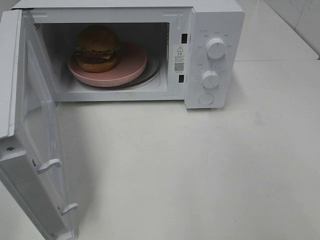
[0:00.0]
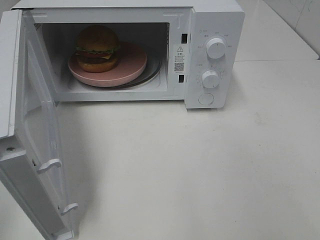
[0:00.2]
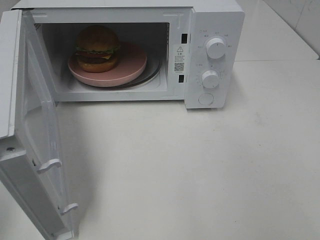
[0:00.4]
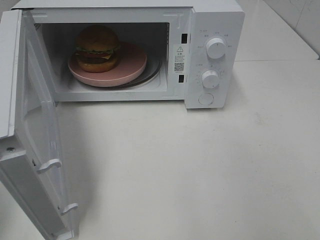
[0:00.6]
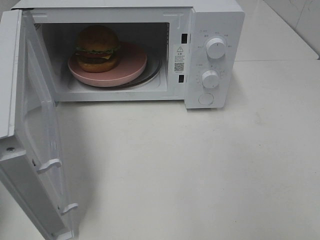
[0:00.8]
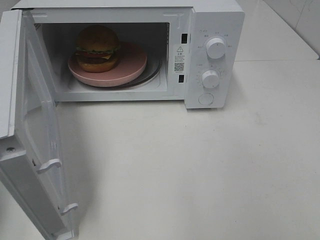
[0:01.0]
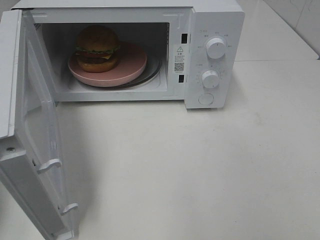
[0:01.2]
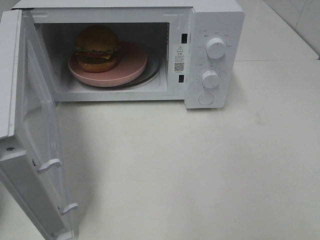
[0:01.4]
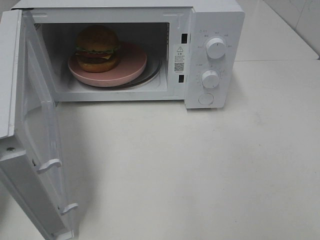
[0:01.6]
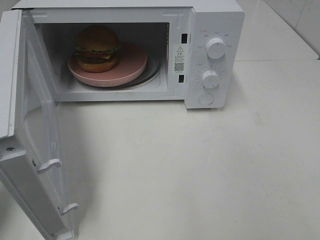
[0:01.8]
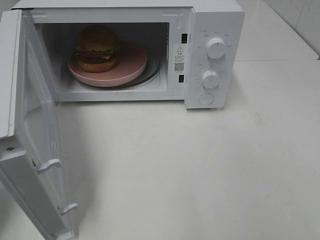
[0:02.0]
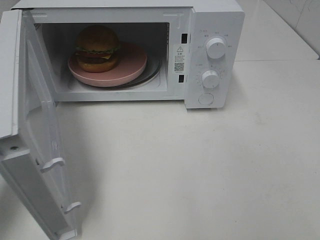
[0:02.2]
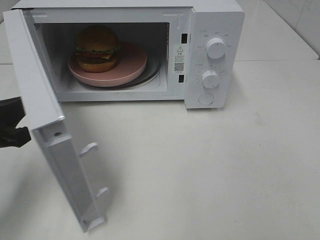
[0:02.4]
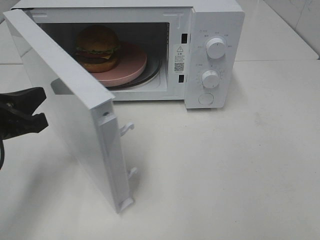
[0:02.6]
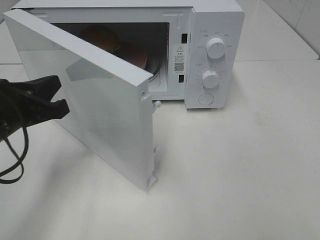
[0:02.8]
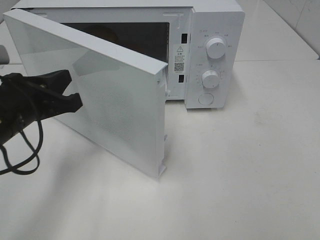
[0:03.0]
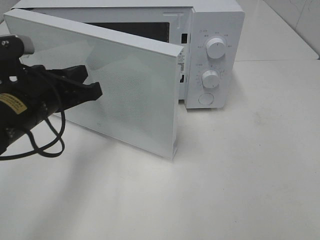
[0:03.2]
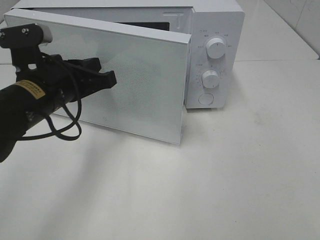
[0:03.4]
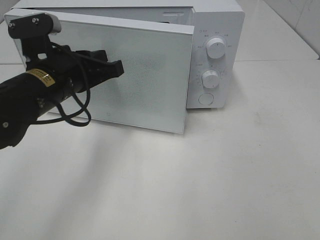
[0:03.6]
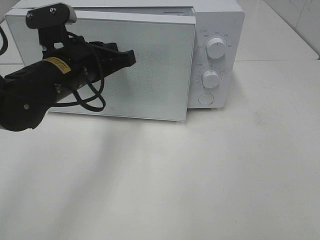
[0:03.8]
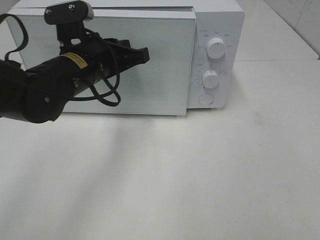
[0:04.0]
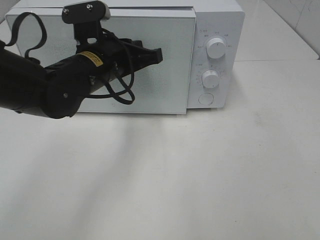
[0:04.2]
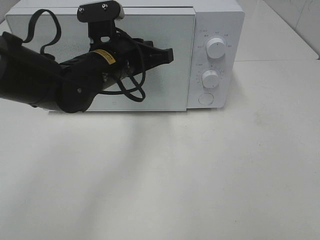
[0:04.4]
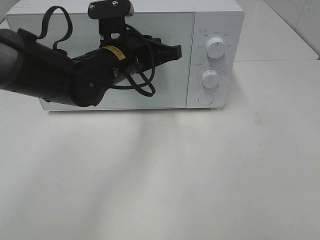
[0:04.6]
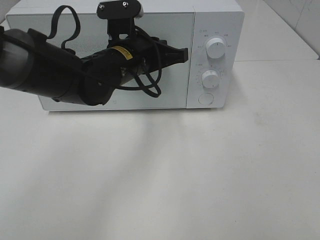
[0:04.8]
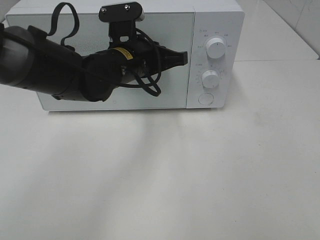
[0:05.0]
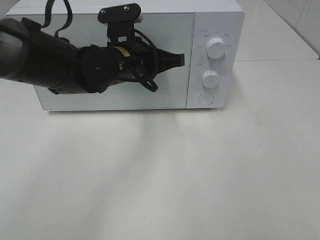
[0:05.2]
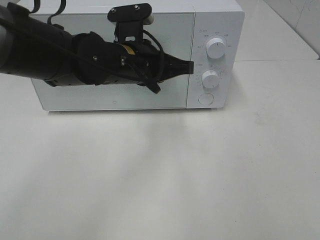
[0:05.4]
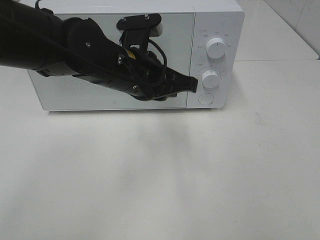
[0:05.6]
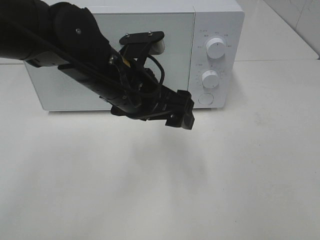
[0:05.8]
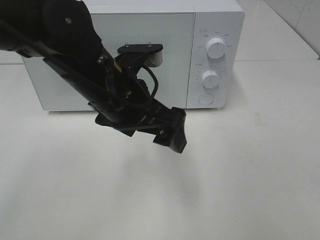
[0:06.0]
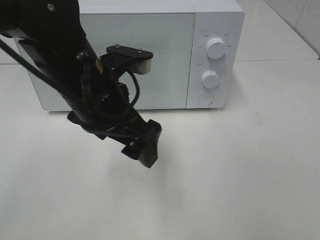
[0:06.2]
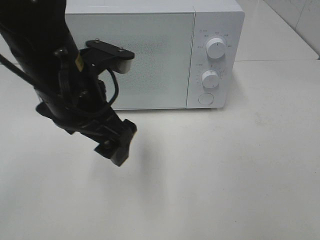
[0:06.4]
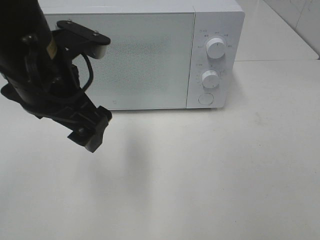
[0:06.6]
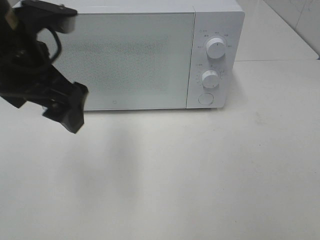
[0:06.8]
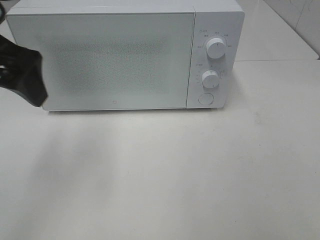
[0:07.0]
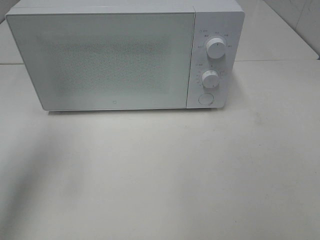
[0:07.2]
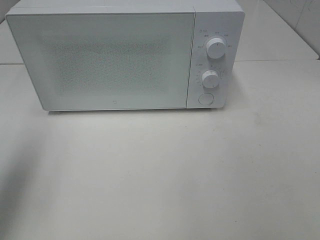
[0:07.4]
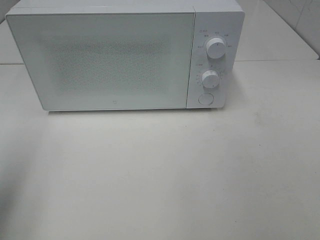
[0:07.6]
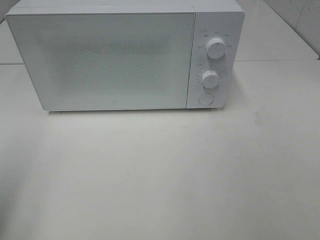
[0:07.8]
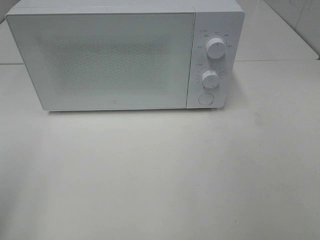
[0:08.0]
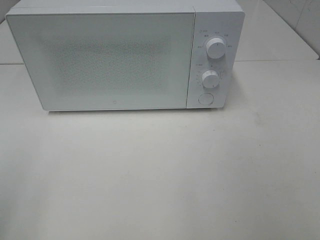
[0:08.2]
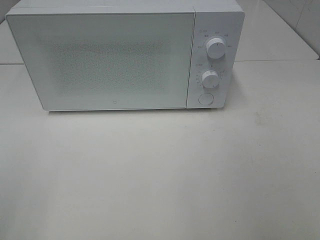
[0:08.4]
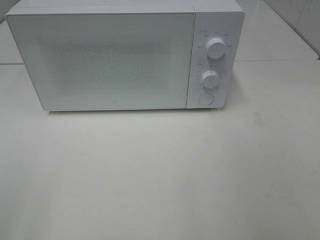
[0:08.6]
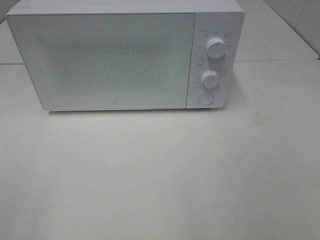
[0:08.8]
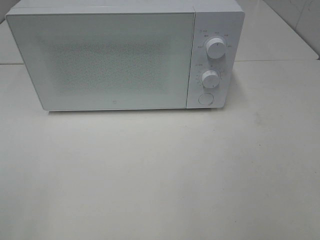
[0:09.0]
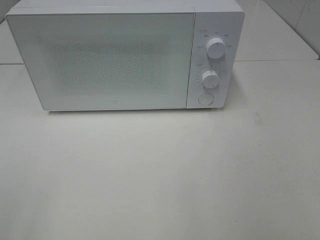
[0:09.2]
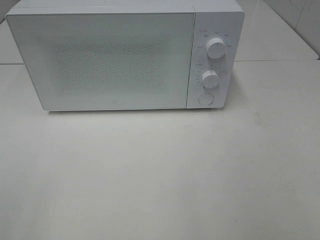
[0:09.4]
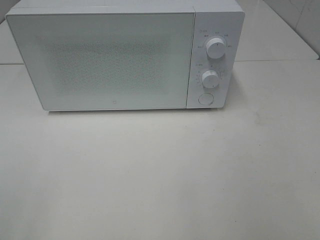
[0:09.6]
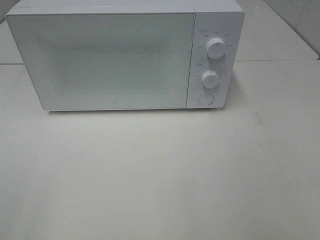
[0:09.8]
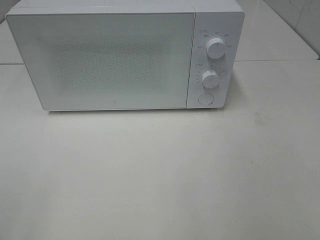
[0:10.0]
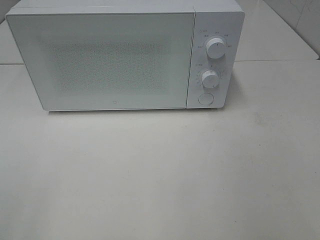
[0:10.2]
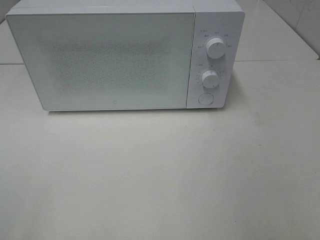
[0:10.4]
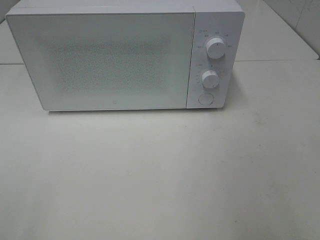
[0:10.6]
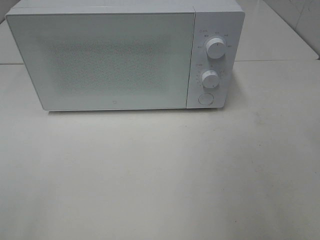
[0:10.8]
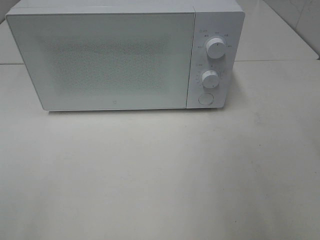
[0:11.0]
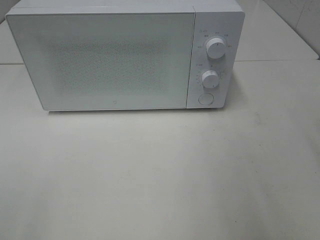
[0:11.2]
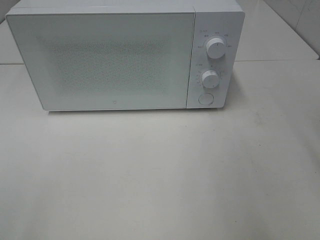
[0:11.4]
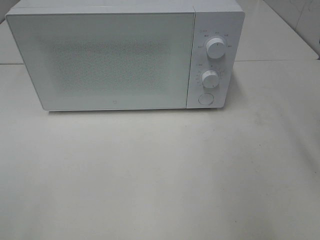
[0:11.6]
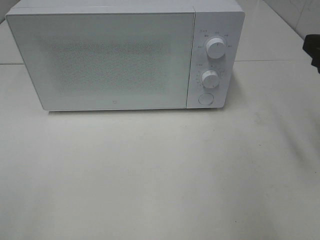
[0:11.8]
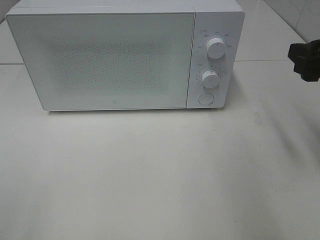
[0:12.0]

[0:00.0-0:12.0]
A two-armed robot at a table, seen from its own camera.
Task of the whole recording: Heat the burger.
Step, 0:00.0 to 0:05.2: Left hand: close the microwave door.
0:01.6 to 0:03.0: The left gripper shifts about 15 cm to the right and forward.
0:03.0 to 0:04.4: The left gripper heads to the right and forward, covering some 15 cm.
0:04.4 to 0:06.0: The left gripper heads backward, covering some 10 cm, and opens up.
0:06.0 to 0:07.6: The left gripper travels to the left by roughly 25 cm.
0:07.6 to 0:09.0: The left gripper moves backward, roughly 15 cm.
0:10.4 to 0:12.0: The right gripper shifts approximately 20 cm forward.

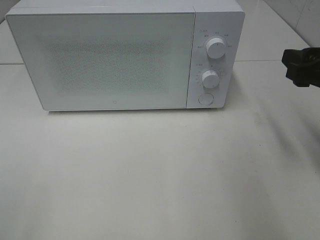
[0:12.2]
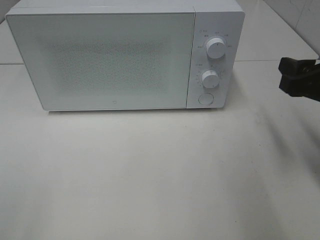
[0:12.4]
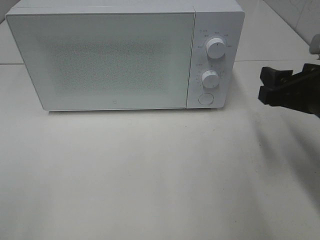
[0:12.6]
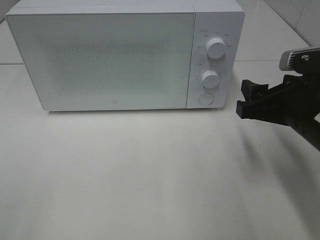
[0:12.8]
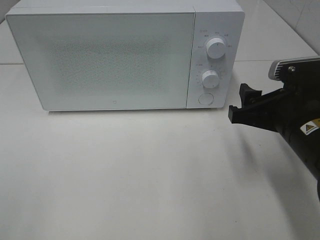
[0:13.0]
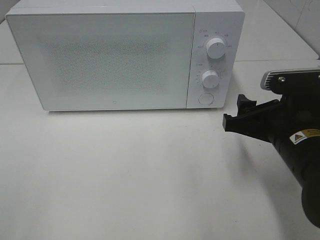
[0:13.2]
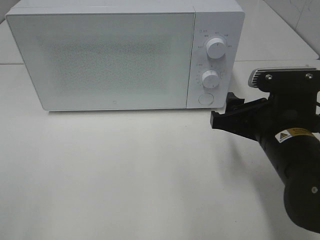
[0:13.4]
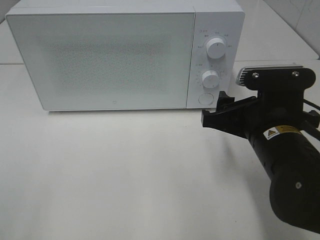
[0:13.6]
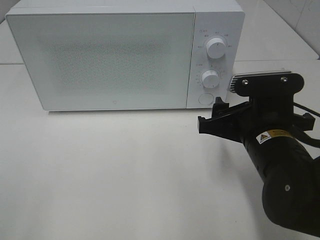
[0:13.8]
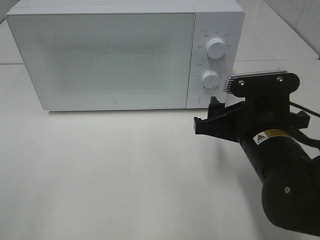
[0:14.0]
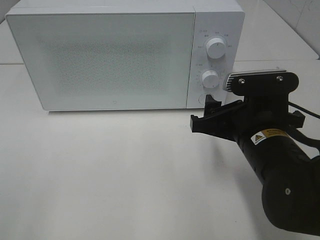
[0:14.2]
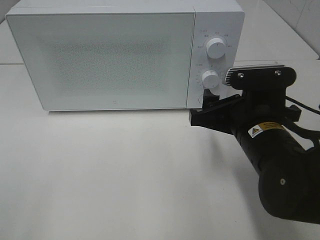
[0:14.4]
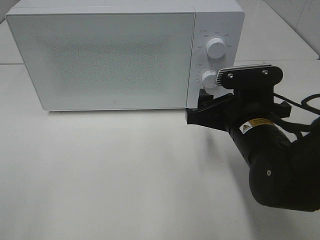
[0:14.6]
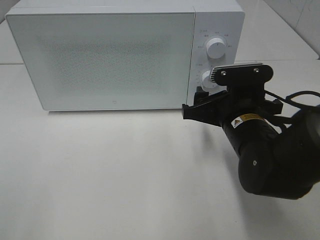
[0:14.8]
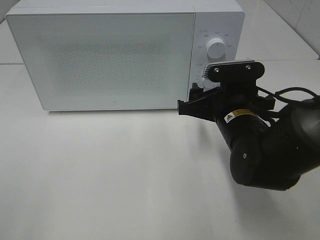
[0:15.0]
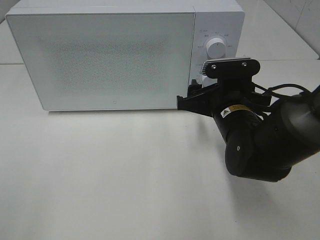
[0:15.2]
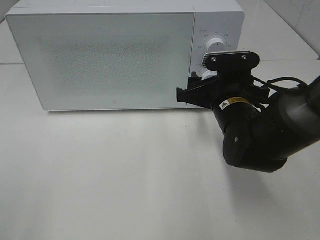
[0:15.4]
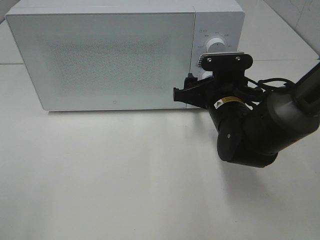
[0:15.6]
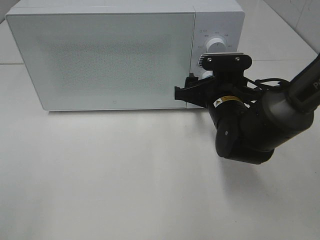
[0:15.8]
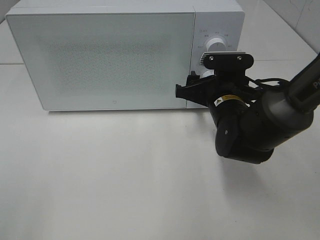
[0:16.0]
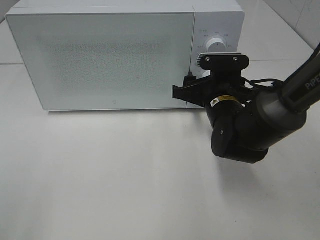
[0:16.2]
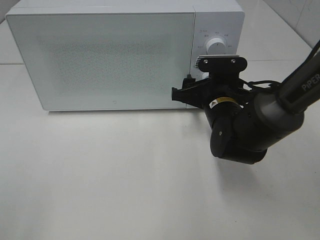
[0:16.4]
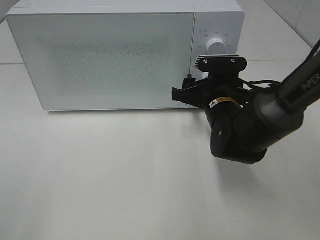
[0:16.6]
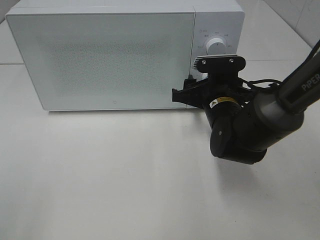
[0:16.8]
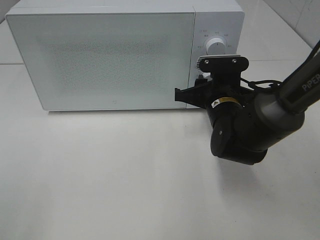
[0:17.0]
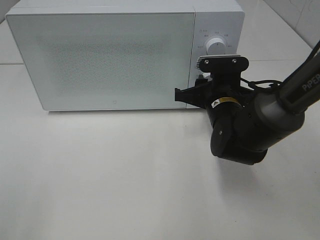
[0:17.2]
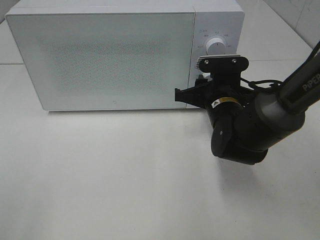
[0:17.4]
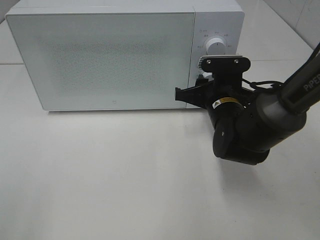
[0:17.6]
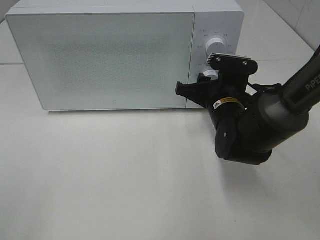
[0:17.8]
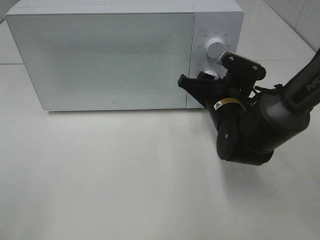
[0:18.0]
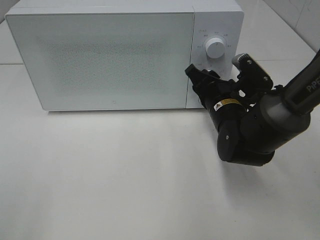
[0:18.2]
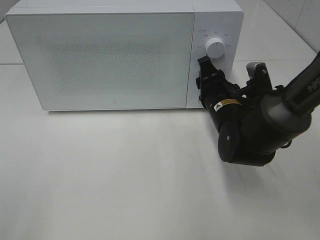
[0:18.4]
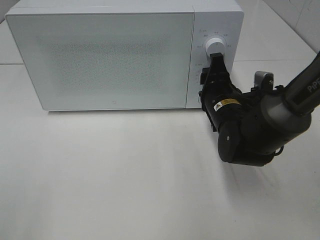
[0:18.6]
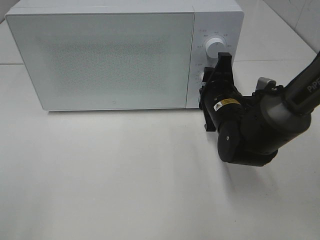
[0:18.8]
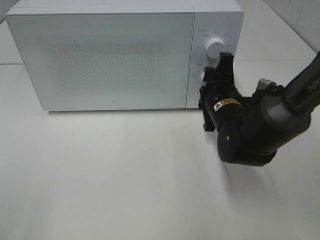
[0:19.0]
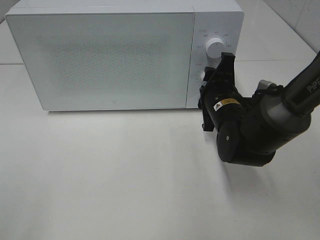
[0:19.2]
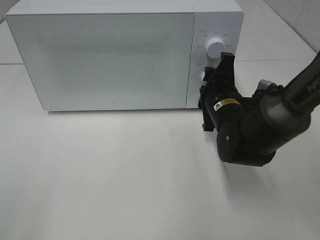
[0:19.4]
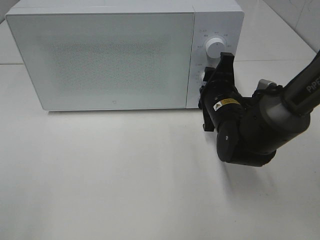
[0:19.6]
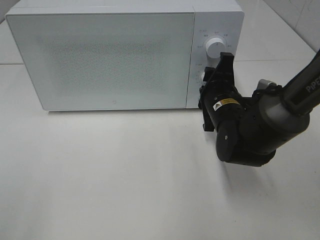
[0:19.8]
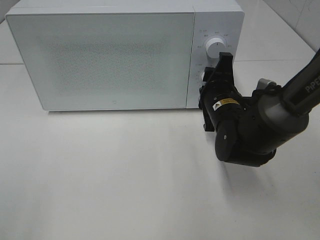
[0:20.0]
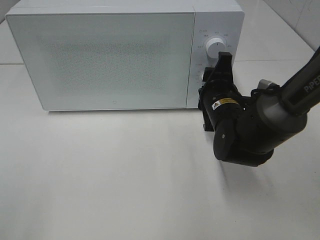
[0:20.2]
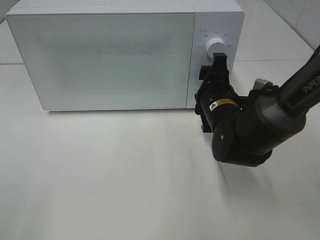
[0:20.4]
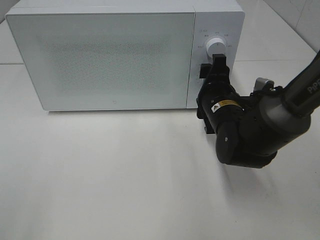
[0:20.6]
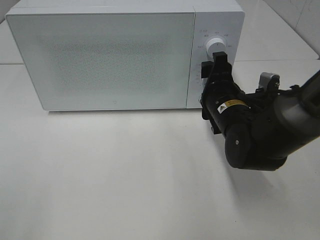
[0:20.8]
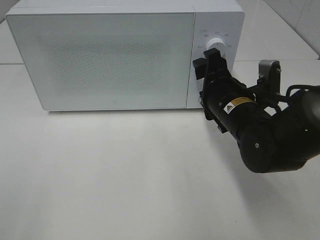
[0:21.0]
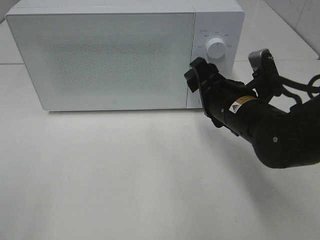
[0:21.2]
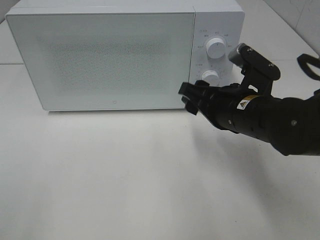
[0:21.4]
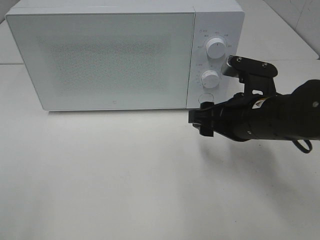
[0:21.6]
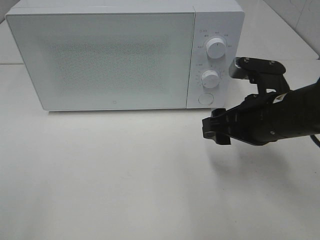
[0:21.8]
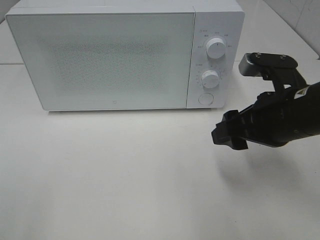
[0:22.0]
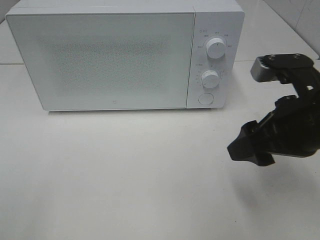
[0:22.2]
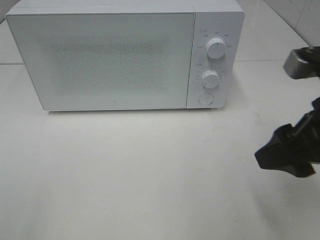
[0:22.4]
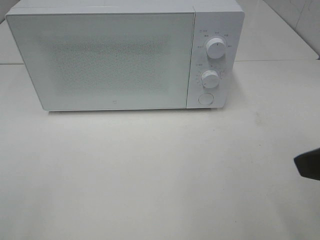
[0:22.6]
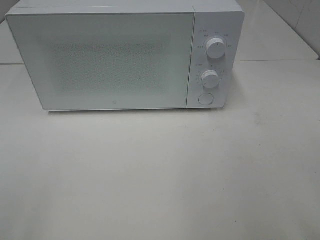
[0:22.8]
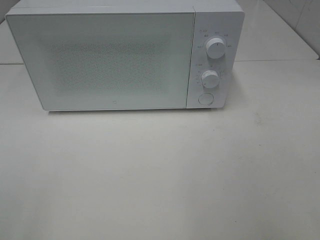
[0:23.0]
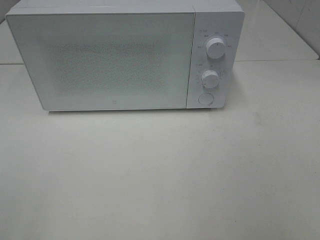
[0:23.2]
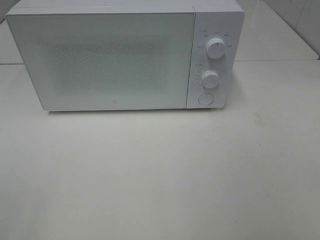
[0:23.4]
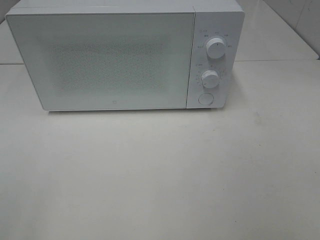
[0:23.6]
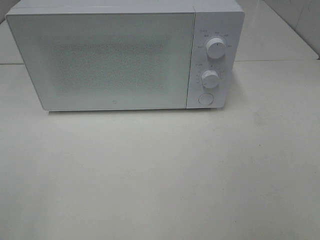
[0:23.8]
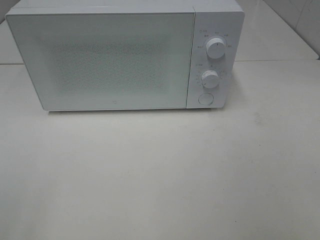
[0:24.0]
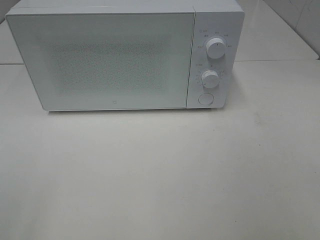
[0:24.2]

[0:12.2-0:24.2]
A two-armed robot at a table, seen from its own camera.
Task of the whole recording: Heat the burger.
Step, 0:12.2 to 0:20.4: Right hand: twist timer button.
0:12.2 to 0:13.8: The right gripper travels to the left and downward by about 15 cm.
0:13.8 to 0:15.2: The right gripper heads forward, covering some 10 cm.
0:15.2 to 0:16.6: The grippers make only small movements.
0:19.8 to 0:21.2: The right gripper goes approximately 5 cm backward.
0:21.2 to 0:22.6: The right gripper is displaced backward, upward and to the right by some 20 cm.
0:22.6 to 0:24.2: The right gripper goes about 15 cm backward and to the right.
